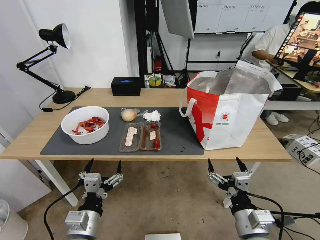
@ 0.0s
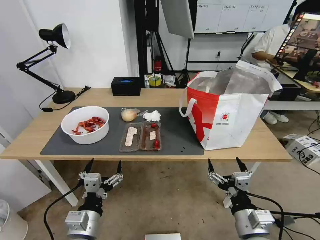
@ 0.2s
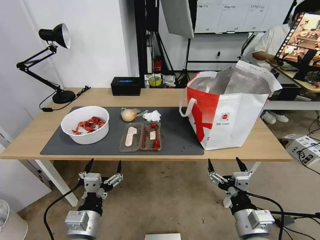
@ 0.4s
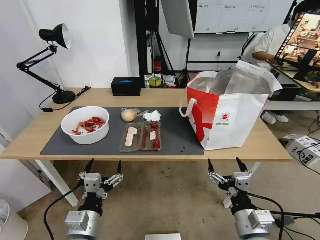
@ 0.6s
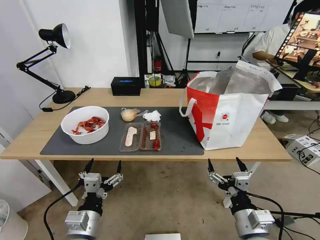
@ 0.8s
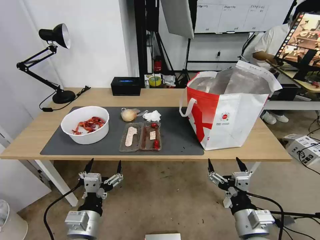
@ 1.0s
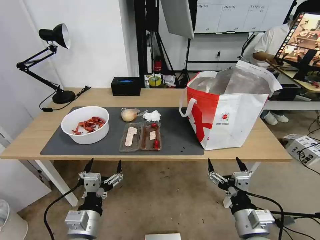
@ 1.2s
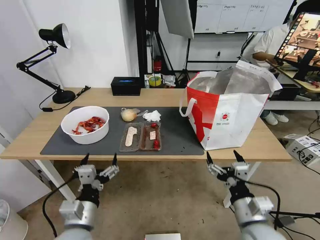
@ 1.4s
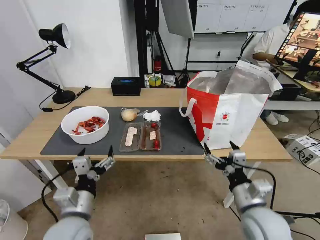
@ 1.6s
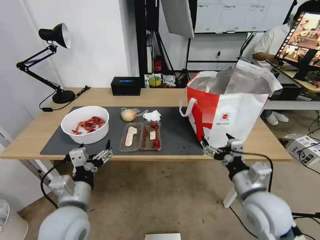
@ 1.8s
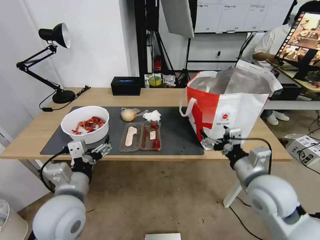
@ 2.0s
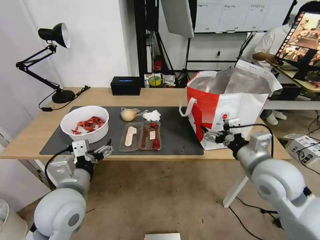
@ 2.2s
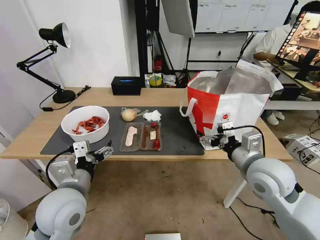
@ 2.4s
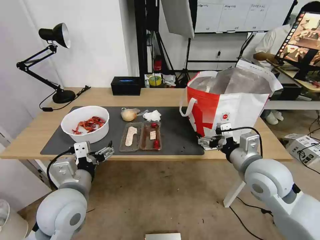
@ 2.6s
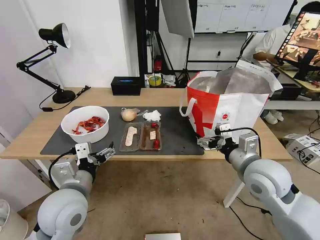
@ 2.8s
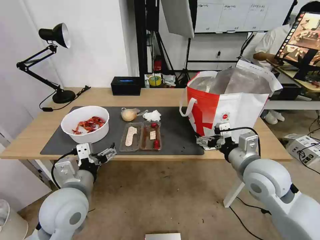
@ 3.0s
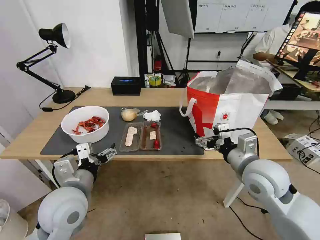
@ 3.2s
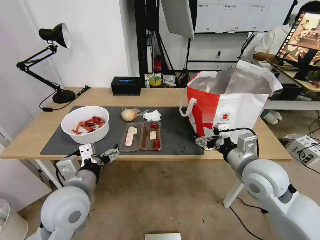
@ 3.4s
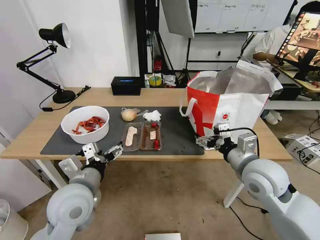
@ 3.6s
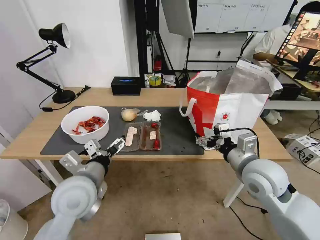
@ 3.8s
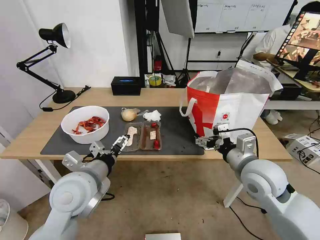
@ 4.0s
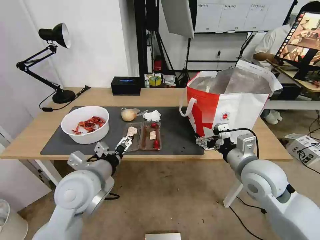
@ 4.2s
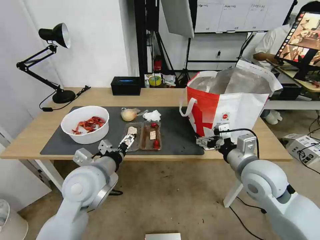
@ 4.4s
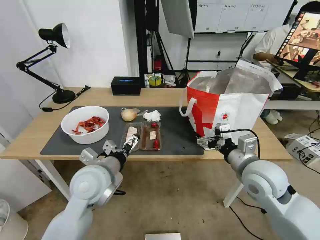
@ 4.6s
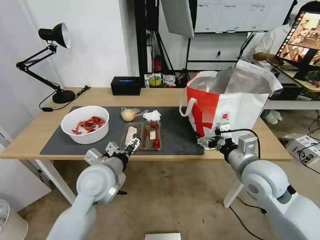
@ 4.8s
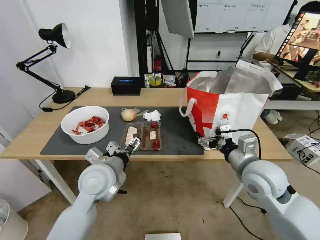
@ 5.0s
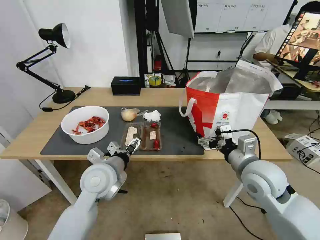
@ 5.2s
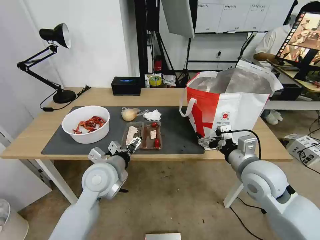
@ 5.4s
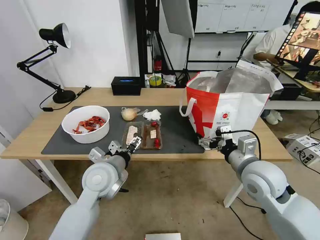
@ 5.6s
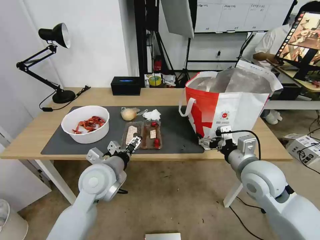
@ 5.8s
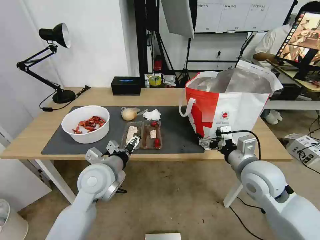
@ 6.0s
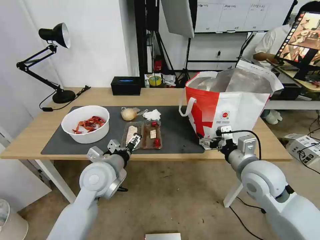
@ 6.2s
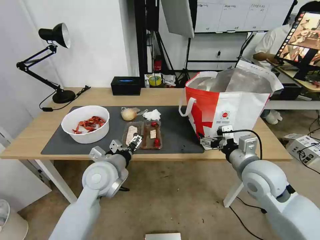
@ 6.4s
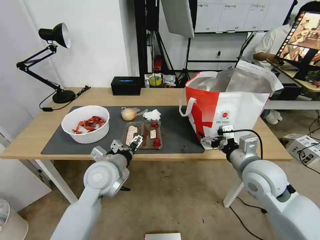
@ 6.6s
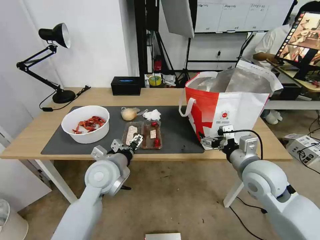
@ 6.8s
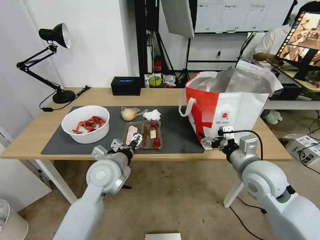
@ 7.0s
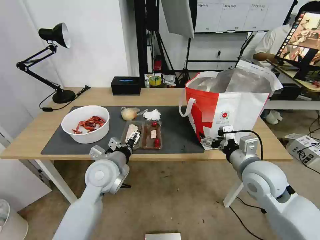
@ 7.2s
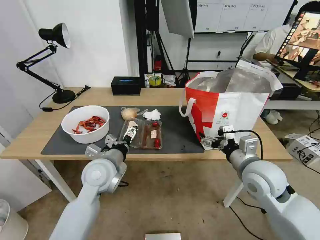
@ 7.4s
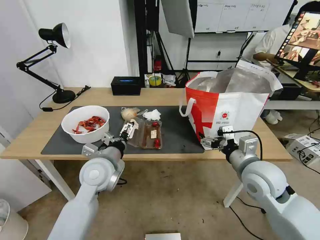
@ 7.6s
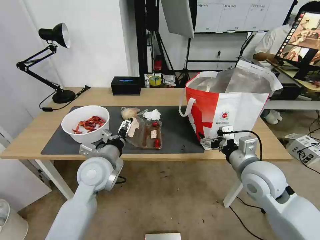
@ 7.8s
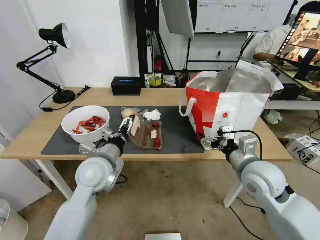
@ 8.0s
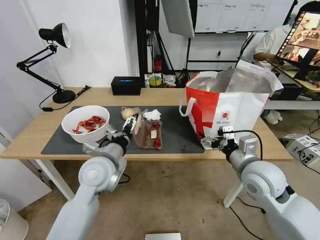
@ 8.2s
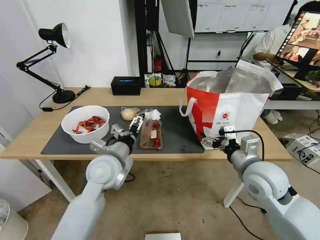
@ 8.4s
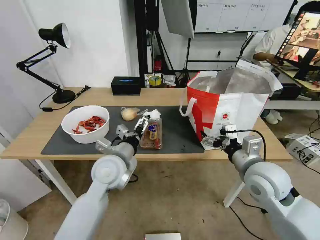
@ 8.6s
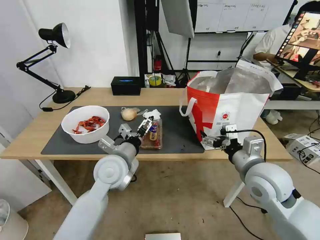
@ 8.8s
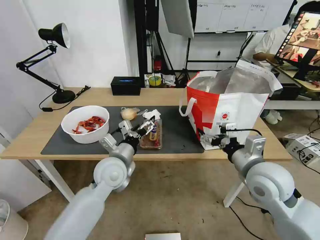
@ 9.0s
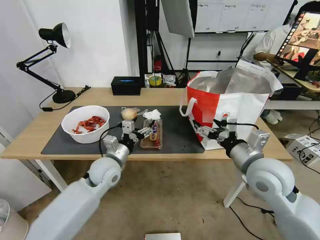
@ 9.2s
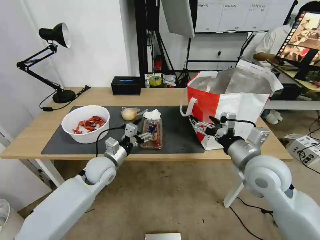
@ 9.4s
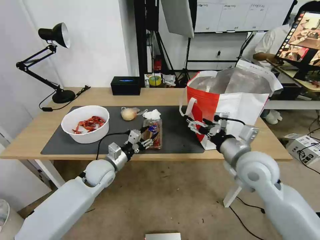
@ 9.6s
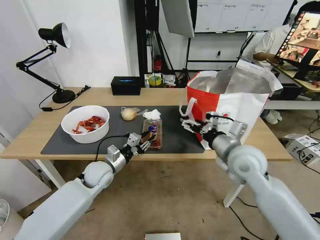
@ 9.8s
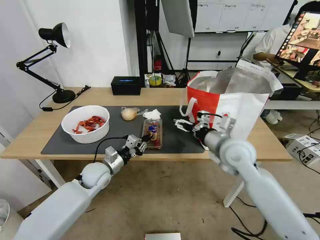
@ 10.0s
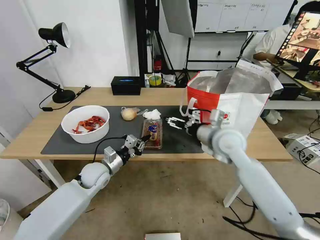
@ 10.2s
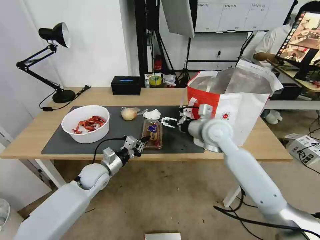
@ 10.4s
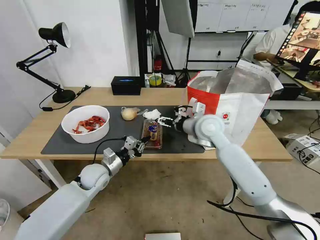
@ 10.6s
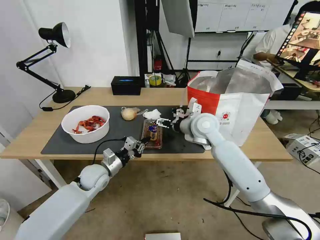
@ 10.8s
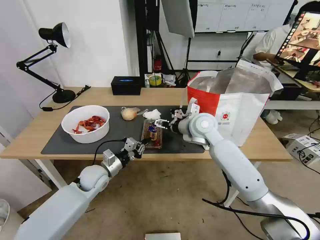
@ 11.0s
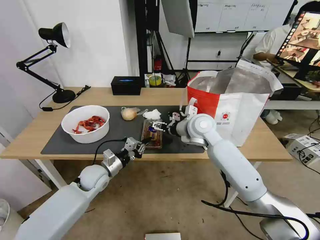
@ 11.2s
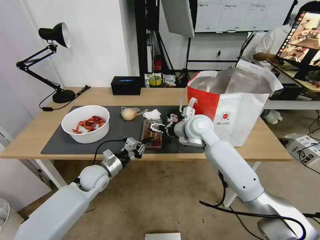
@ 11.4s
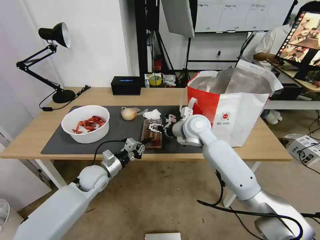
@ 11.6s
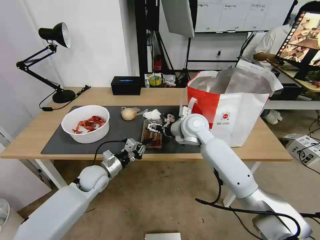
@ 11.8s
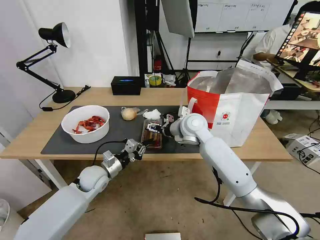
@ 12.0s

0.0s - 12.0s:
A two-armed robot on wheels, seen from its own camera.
Task of the whole recording: Pick up the trash from the table and place it into the takeout bag.
1.6s - 3.0s: The right gripper shifts about 10 cm forward and upward; the left gripper changes place by roughly 5 cm.
3.0s - 4.4s: The left gripper ends up roughly 5 cm from where it was.
4.4s - 6.0s: There are only small adjustments of the grippers.
6.0s - 7.6s: The grippers stay close to where they were, moving slightly.
9.0s - 10.4s: The left gripper travels downward and to the left by about 15 cm, and closes its fingers. Meanwhile the right gripper heads forward and to the left, covering some 15 cm.
10.4s - 12.0s: The right gripper shifts about 10 cm to the left and forward.

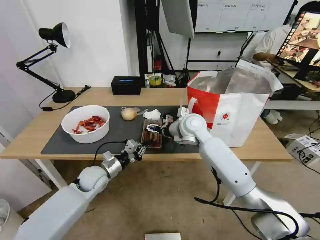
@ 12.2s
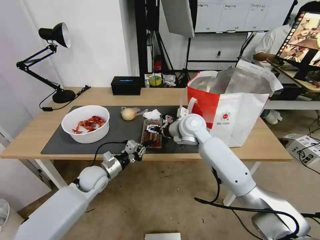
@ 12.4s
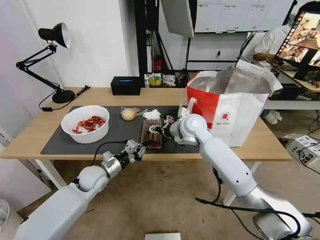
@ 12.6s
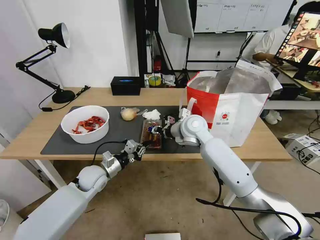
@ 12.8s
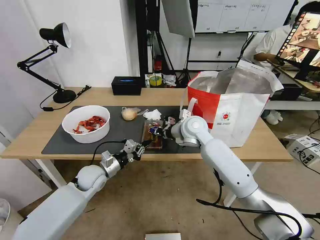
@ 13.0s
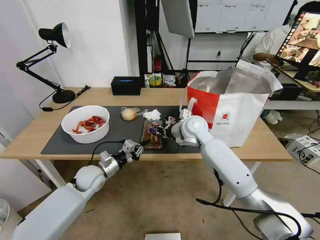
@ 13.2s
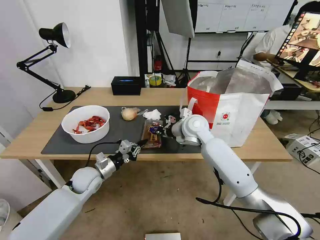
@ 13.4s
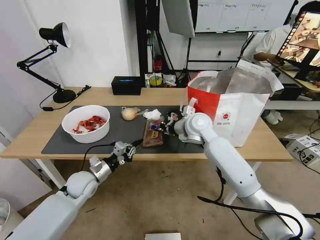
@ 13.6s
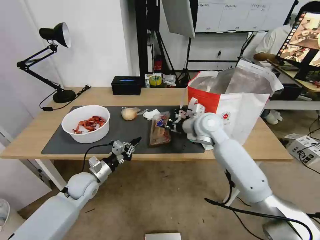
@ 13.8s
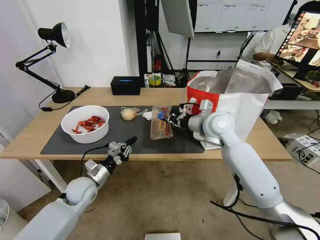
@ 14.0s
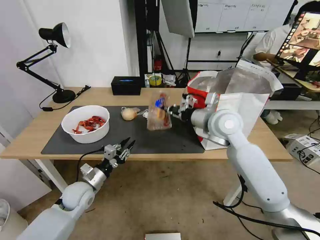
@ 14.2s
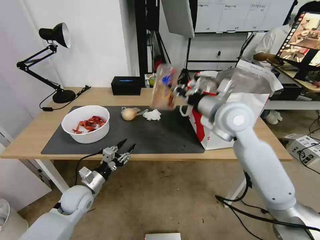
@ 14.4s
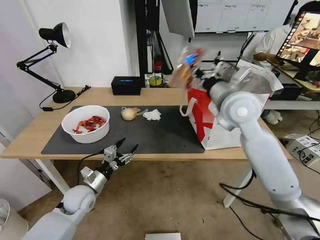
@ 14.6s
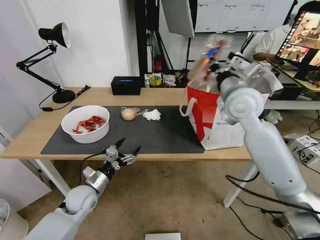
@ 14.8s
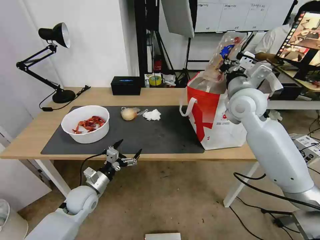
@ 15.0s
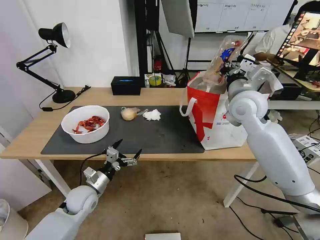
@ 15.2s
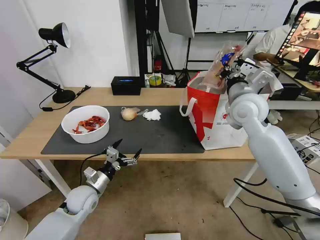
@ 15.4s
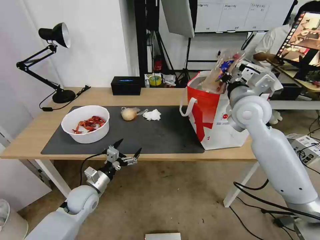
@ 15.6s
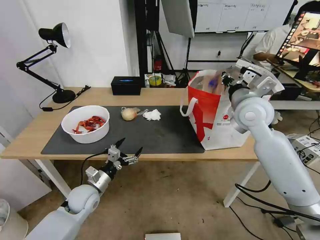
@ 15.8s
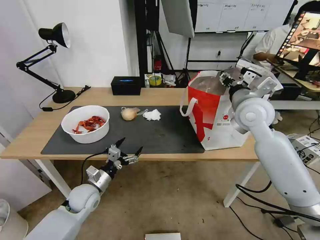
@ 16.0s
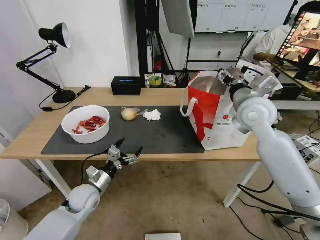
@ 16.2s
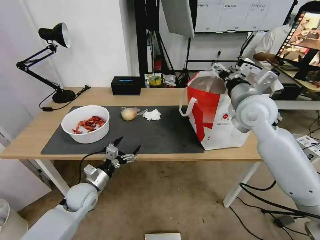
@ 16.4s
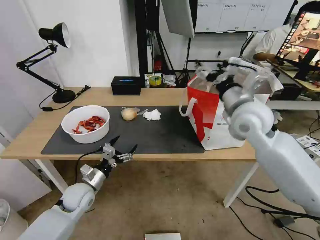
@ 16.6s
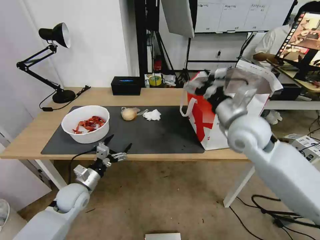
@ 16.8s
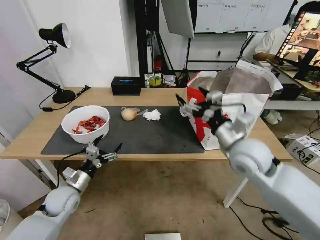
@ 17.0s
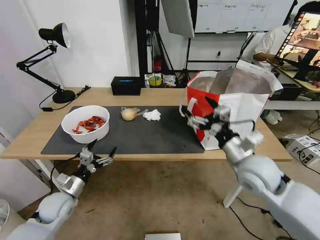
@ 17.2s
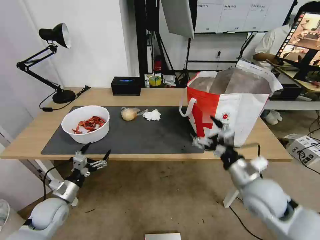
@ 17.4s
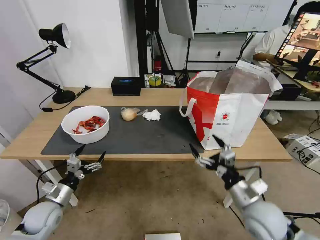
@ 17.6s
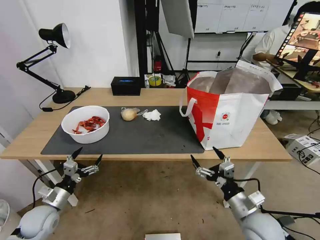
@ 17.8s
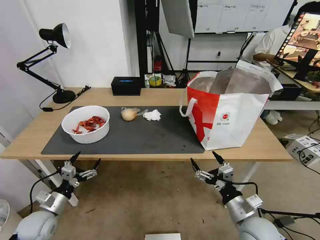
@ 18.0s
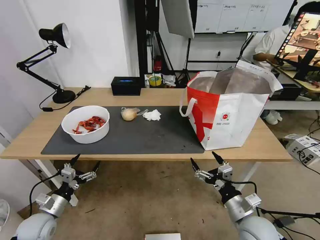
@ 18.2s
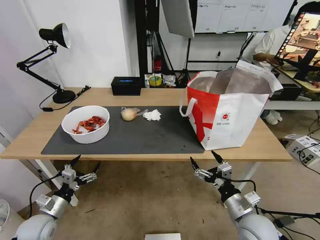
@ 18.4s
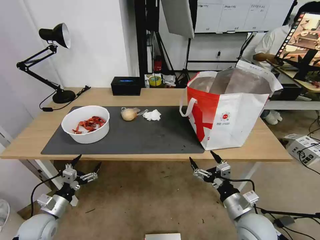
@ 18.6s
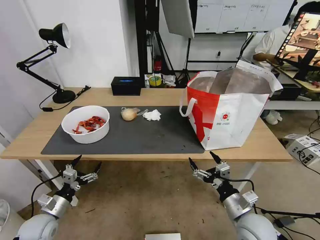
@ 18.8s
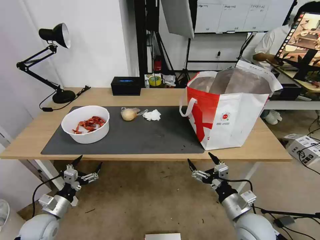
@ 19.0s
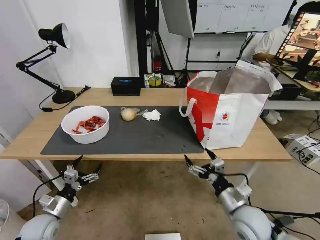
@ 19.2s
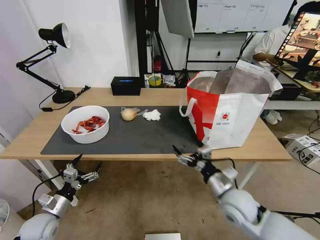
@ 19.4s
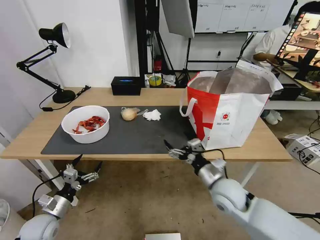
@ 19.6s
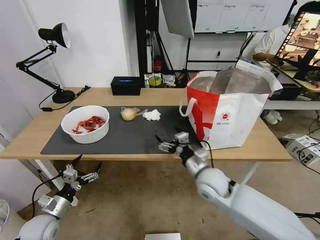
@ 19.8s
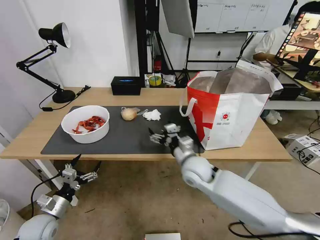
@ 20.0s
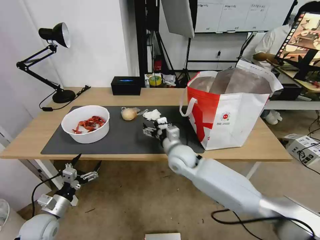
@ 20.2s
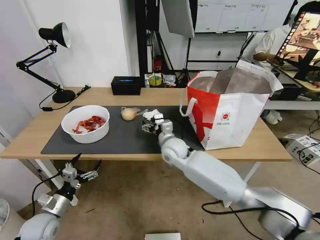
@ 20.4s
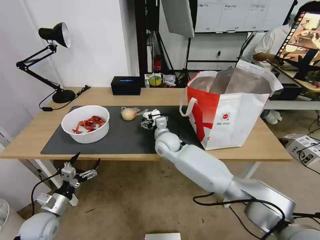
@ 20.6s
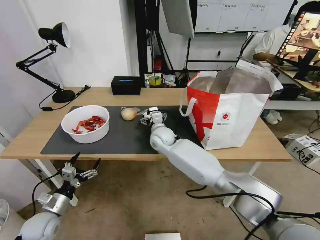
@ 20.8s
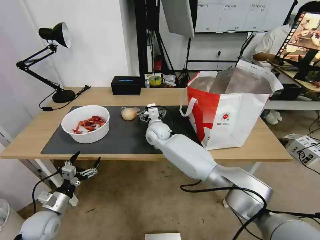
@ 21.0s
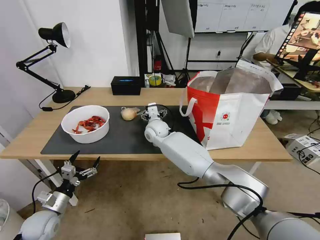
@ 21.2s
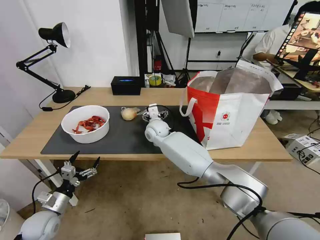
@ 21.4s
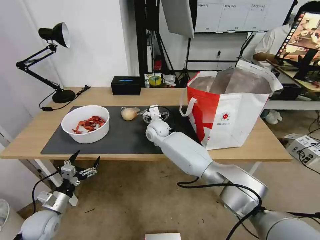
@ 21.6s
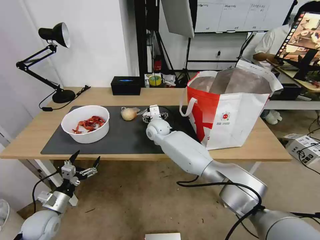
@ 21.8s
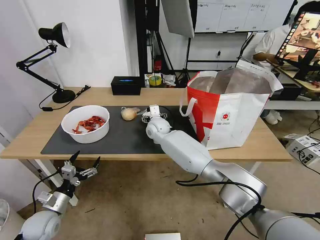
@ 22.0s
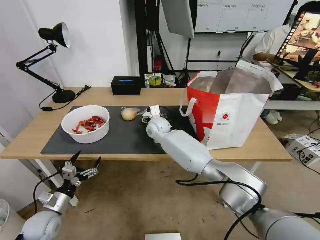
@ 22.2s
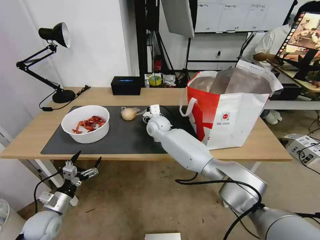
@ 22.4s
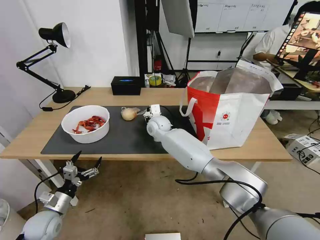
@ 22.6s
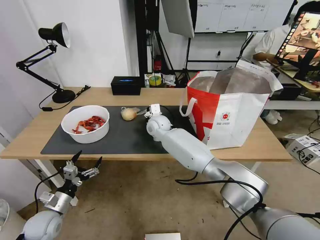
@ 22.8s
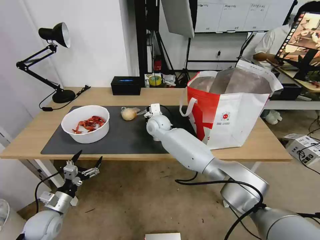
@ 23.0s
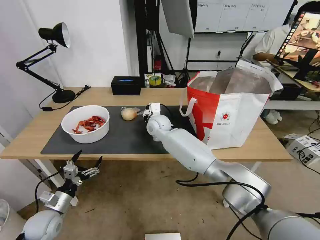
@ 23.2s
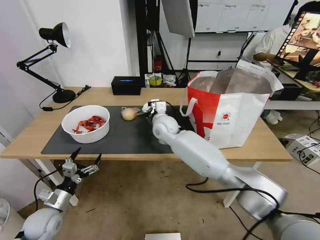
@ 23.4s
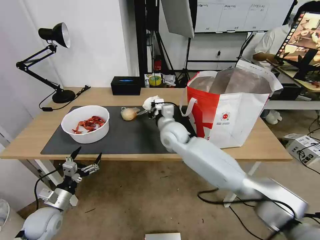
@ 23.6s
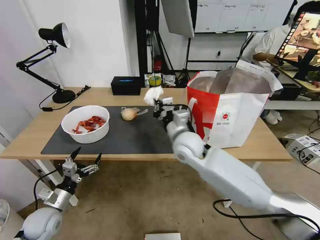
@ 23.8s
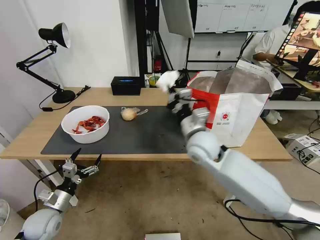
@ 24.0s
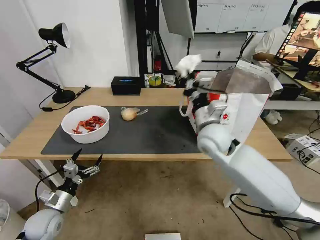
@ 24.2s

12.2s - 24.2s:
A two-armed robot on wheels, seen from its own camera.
Task of the whole recording: Pick up the trash from the table and place it into the takeout bag.
12.2s - 13.8s: The right gripper is displaced to the right by about 5 cm, and closes its fingers.
13.8s - 15.2s: The right gripper shifts about 10 cm upward and to the right; the left gripper opens up.
15.2s - 16.6s: The right gripper goes some 5 cm backward, and opens up.
16.6s - 18.2s: The right gripper heads downward and backward, covering about 35 cm, while the left gripper shifts some 15 cm to the left and backward.
18.2s - 19.8s: The right gripper heads forward and to the left, covering approximately 15 cm.
19.8s - 21.2s: The right gripper travels forward and to the left by about 30 cm.
21.2s - 22.6s: The right gripper closes up.
22.6s - 24.2s: The right gripper travels to the right, backward and upward by about 25 cm, and closes its fingers.
